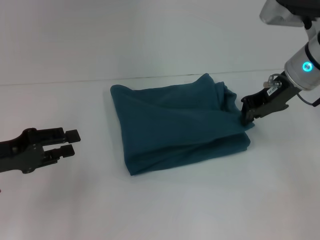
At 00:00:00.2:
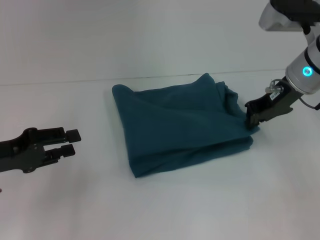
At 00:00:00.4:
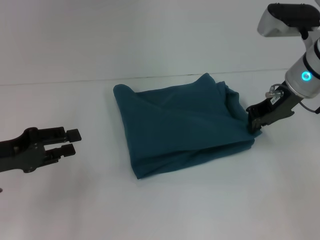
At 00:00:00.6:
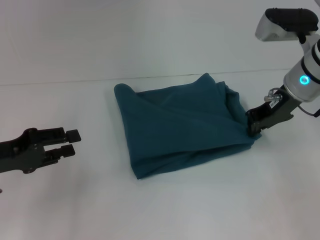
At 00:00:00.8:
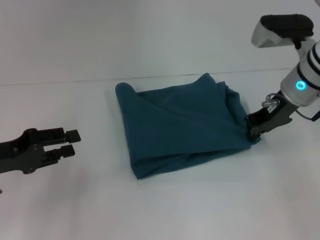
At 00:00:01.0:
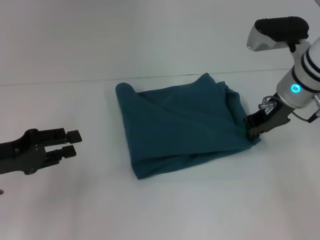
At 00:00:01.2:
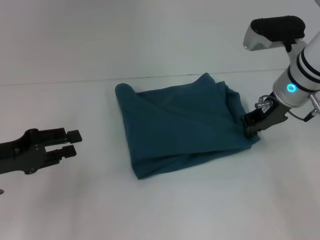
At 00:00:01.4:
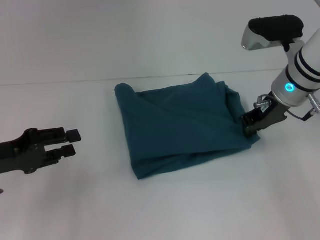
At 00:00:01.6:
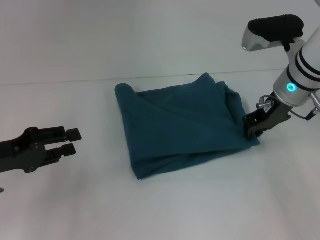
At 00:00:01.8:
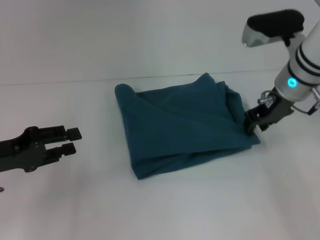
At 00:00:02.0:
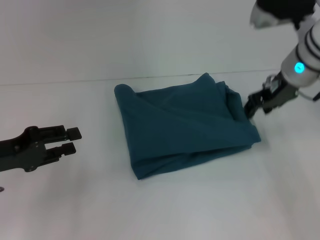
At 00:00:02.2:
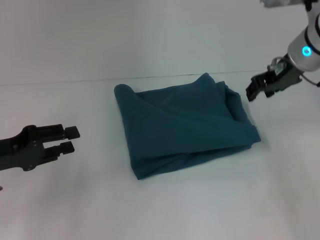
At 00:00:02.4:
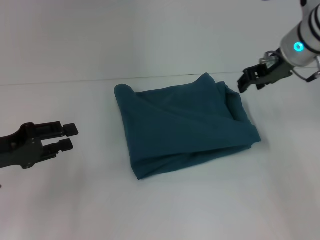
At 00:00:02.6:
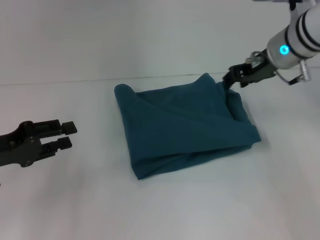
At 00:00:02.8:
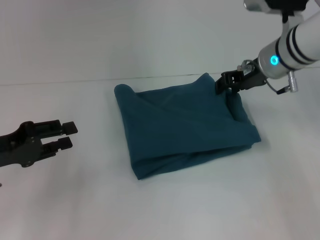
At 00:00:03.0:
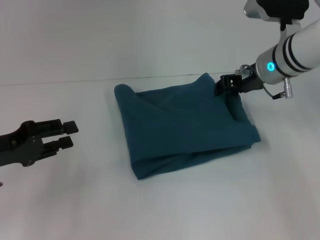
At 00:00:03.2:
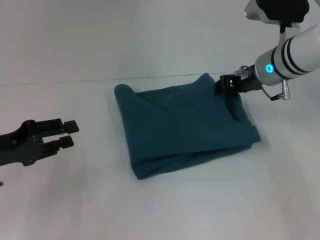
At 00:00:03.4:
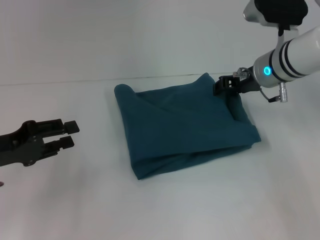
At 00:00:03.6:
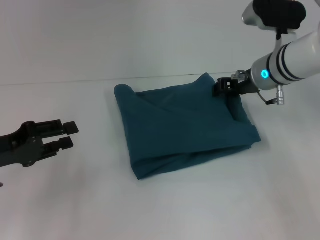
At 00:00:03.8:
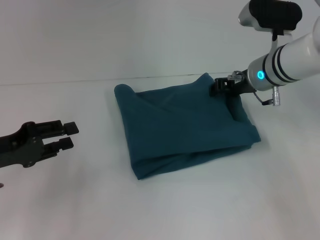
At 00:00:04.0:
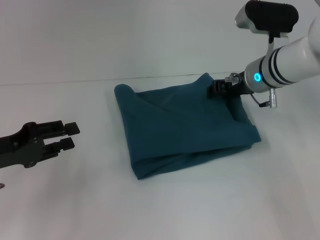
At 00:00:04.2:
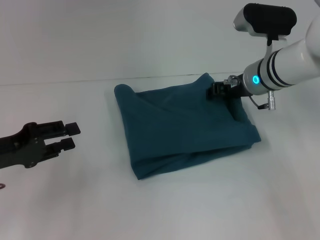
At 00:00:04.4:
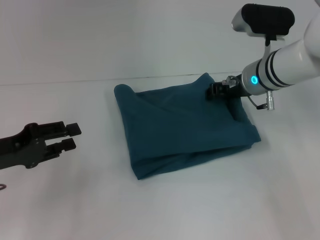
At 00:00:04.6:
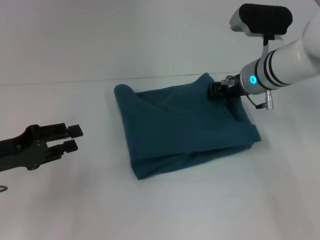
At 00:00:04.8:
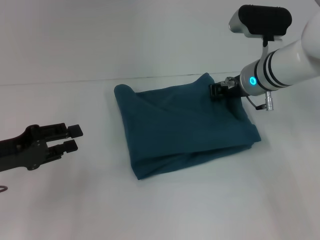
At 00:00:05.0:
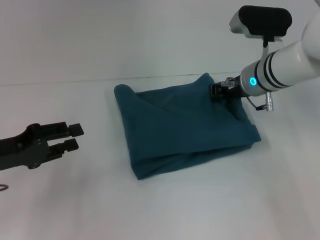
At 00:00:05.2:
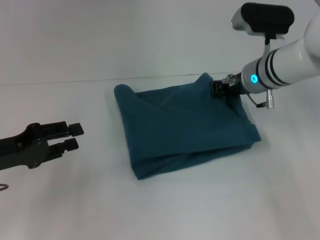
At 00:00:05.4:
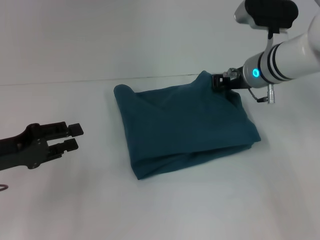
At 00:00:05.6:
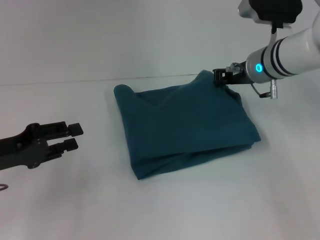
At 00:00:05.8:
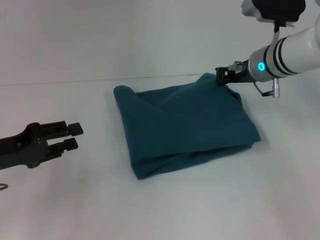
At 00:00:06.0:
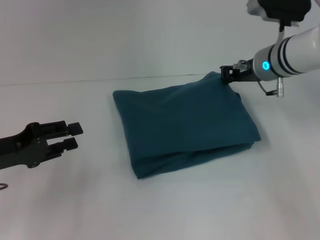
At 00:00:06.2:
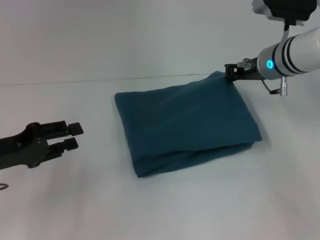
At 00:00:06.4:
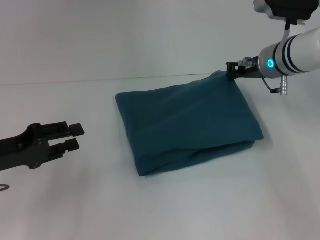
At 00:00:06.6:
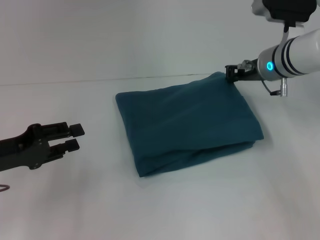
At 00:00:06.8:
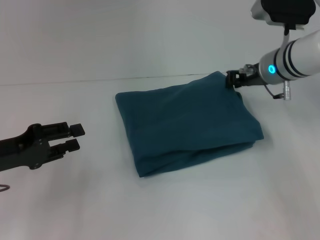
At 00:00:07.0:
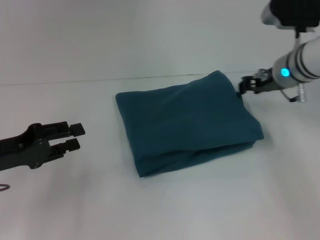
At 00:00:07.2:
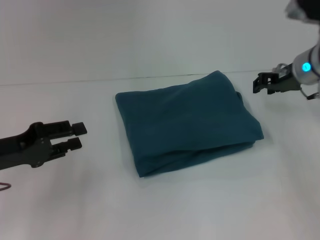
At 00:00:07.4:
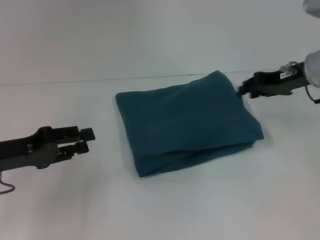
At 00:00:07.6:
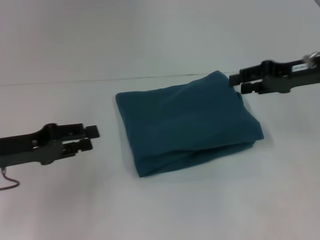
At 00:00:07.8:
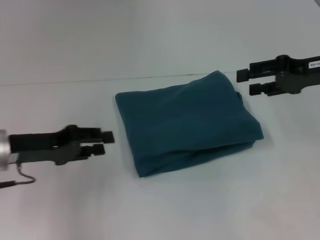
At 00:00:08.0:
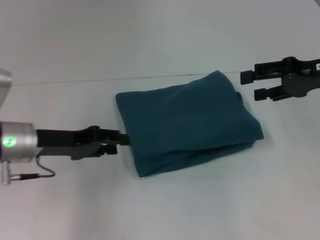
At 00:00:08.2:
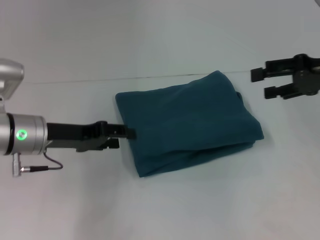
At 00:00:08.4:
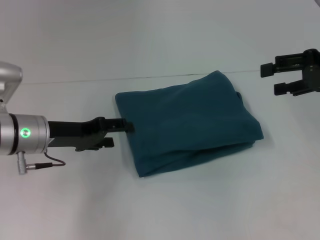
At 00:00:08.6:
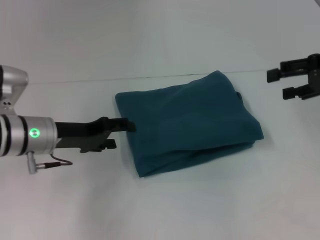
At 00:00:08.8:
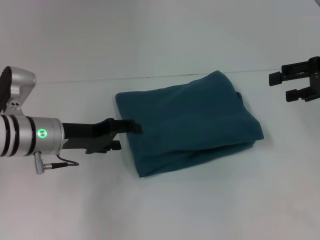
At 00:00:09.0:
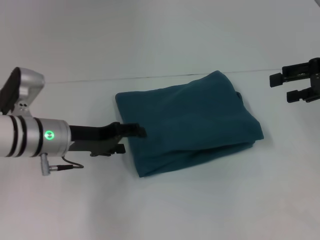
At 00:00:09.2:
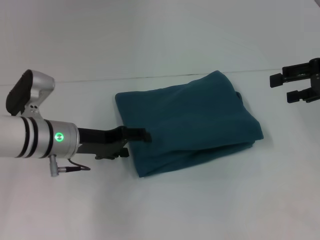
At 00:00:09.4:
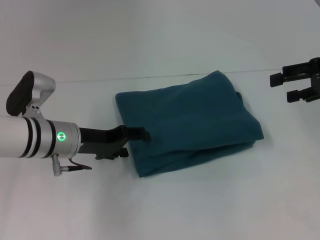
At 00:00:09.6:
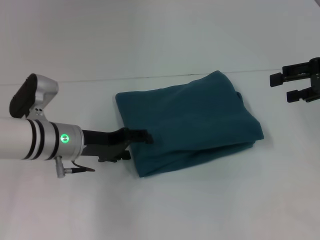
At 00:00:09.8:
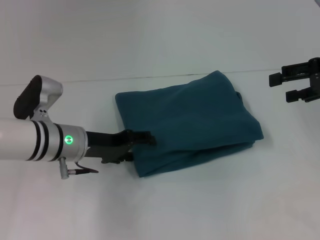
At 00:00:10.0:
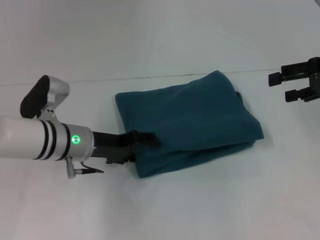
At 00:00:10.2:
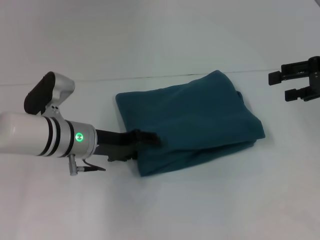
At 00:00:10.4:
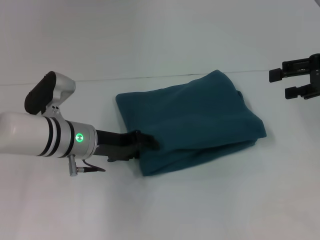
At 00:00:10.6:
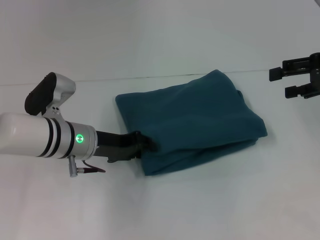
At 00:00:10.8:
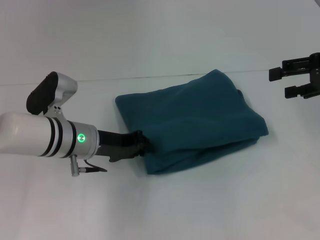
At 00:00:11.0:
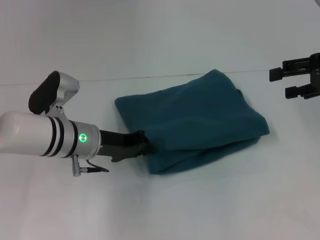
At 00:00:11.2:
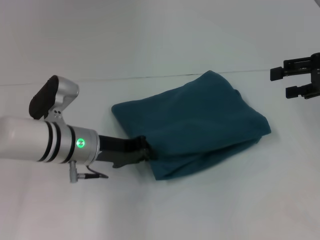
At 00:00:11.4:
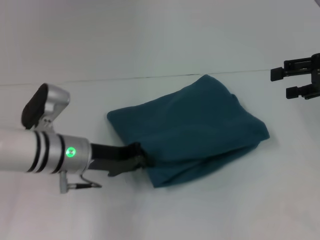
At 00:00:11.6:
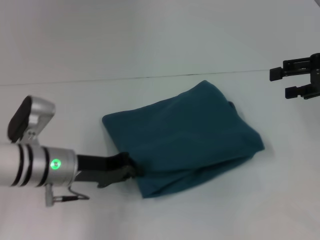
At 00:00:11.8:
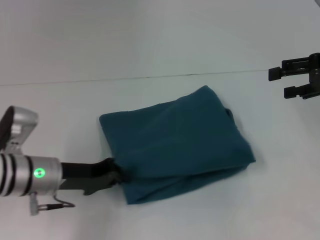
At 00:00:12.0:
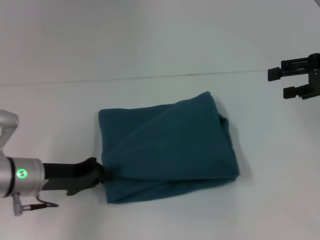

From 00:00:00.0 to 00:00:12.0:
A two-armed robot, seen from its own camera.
From 00:00:00.0 to 00:00:01.6: The grippers stay close to where they were, moving slightly.
From 00:00:01.6 to 00:00:03.0: The right gripper opens up.
From 00:00:03.0 to 00:00:04.4: There are only small adjustments of the grippers.
From 00:00:04.4 to 00:00:06.0: The right gripper closes its fingers.
From 00:00:06.0 to 00:00:07.6: The right gripper moves to the right and backward, roughly 10 cm, and opens.
From 00:00:07.6 to 00:00:09.0: The left gripper heads to the right and forward, covering about 10 cm, and opens; the right gripper is displaced to the right by roughly 5 cm, and opens its fingers.
From 00:00:09.0 to 00:00:10.4: The grippers move only a little.
From 00:00:10.4 to 00:00:12.0: The left gripper is displaced to the left and backward by roughly 10 cm, and closes its fingers.

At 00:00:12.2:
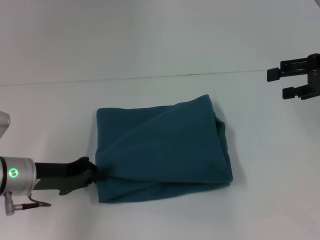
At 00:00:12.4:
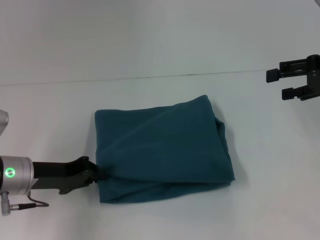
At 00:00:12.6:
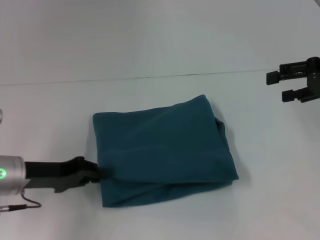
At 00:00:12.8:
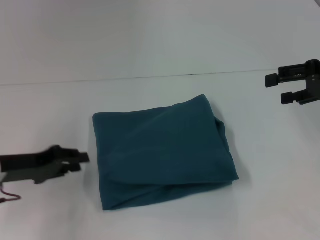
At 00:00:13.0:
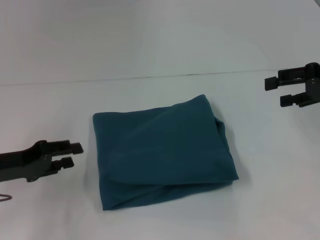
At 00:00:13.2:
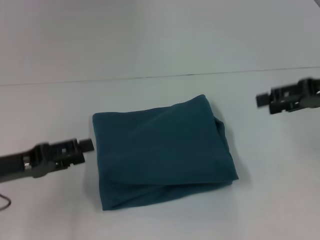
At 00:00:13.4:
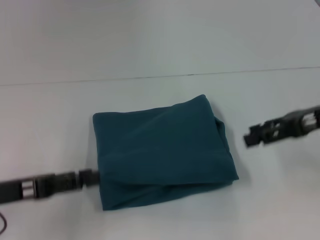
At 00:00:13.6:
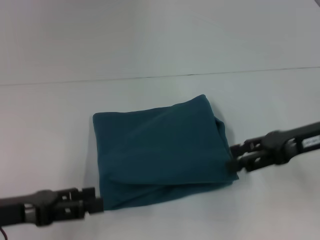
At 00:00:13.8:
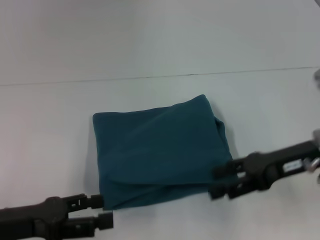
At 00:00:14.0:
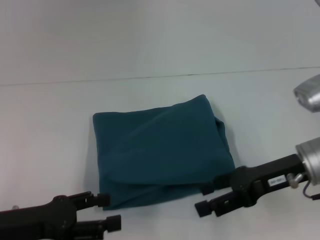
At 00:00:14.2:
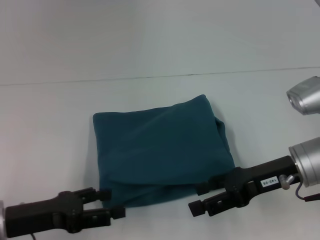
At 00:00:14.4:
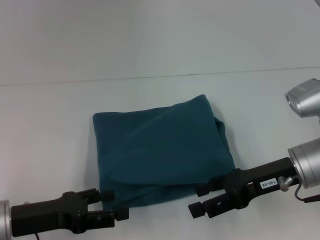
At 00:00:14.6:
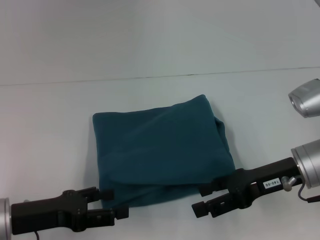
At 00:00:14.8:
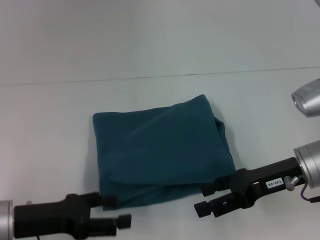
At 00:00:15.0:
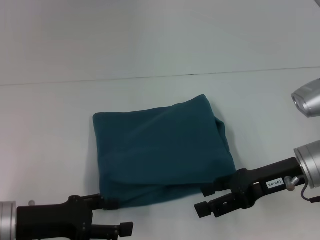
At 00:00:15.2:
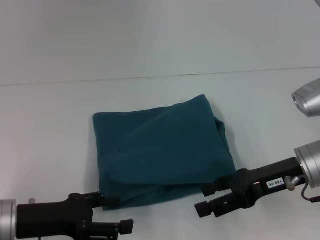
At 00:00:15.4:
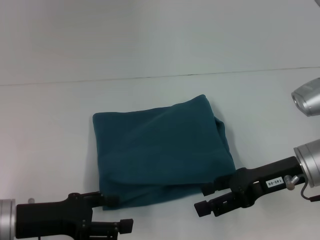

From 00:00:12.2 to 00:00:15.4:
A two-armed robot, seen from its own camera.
From 00:00:12.2 to 00:00:13.8: The left gripper is displaced backward by roughly 10 cm, and opens up; the right gripper goes some 15 cm to the left, downward and backward.
From 00:00:13.8 to 00:00:15.4: The grippers move only a little.
